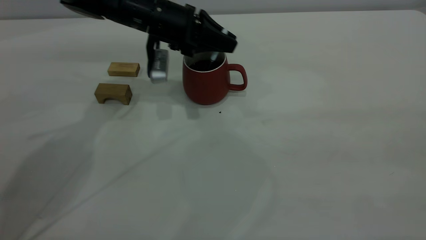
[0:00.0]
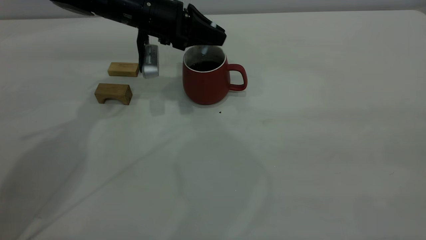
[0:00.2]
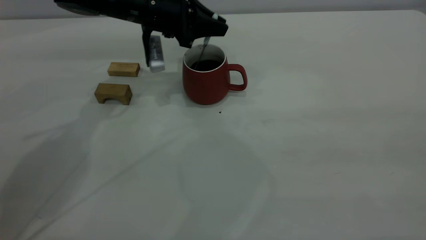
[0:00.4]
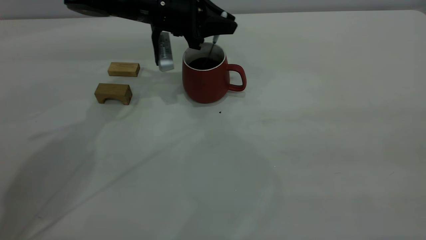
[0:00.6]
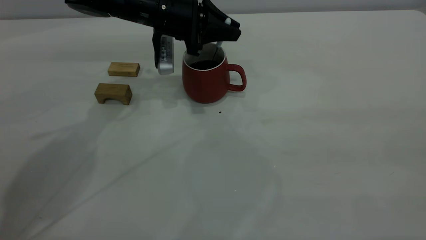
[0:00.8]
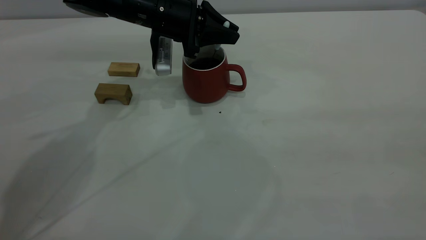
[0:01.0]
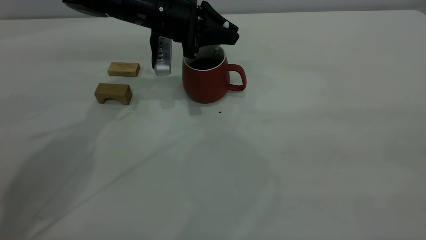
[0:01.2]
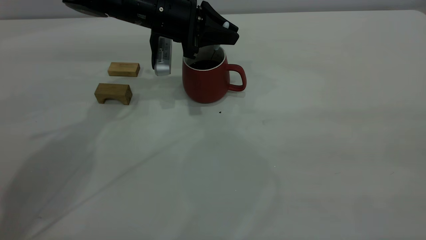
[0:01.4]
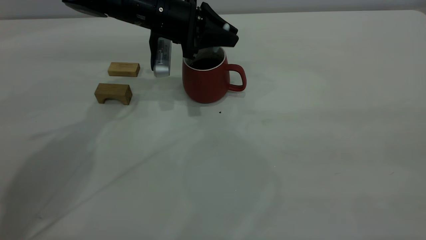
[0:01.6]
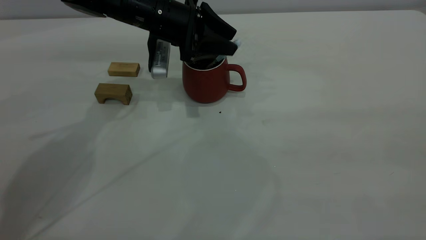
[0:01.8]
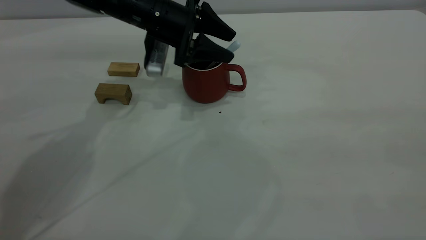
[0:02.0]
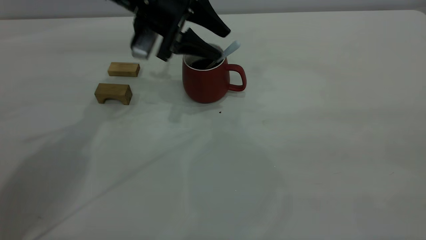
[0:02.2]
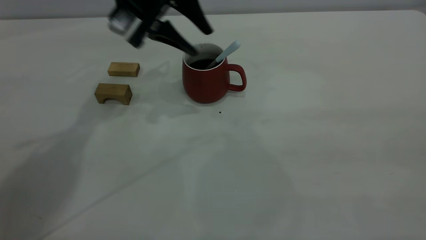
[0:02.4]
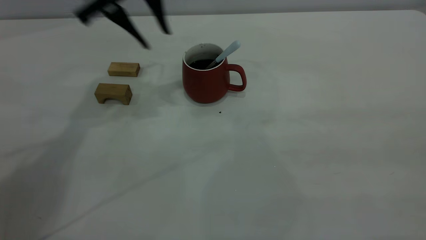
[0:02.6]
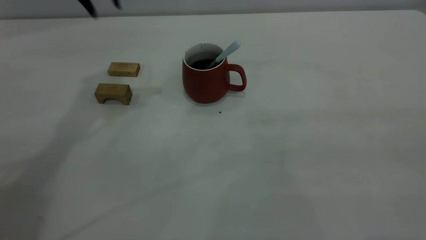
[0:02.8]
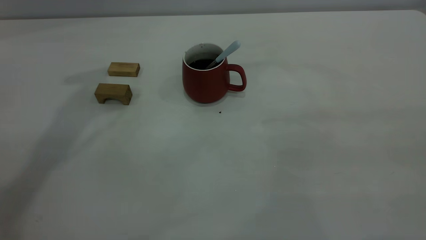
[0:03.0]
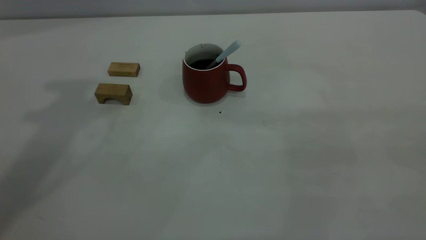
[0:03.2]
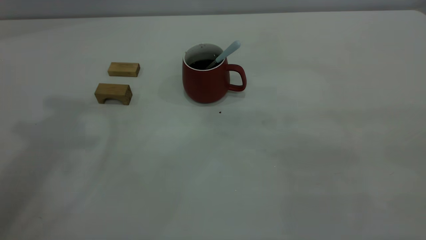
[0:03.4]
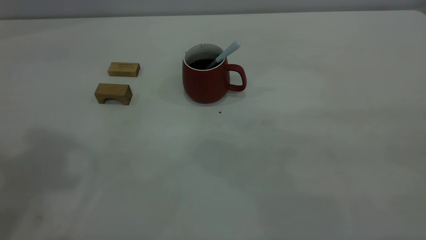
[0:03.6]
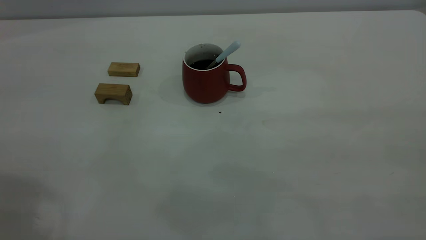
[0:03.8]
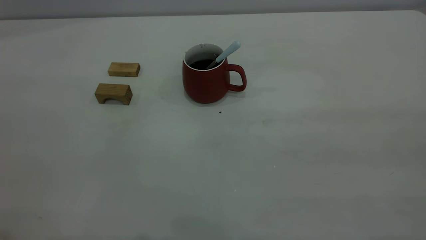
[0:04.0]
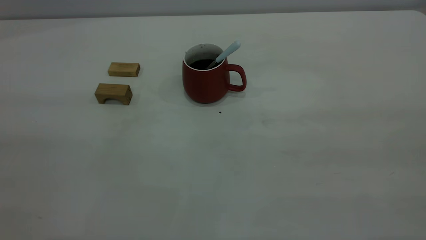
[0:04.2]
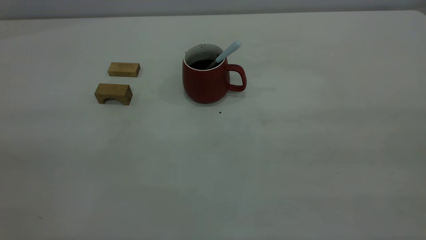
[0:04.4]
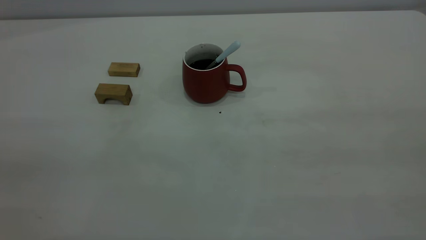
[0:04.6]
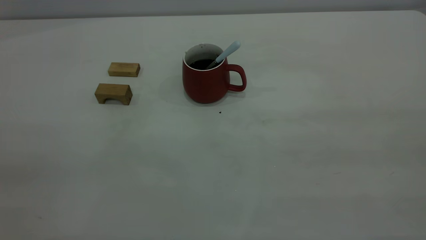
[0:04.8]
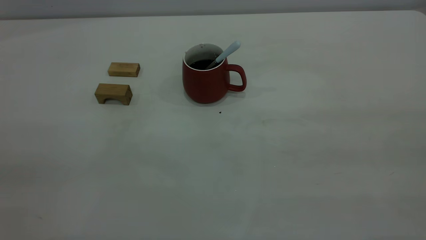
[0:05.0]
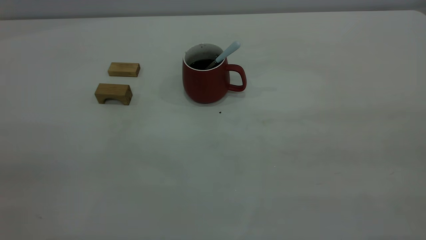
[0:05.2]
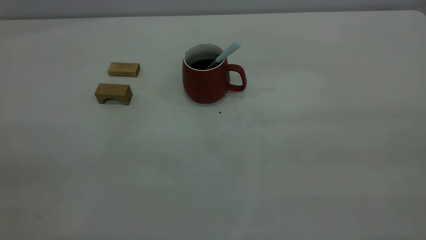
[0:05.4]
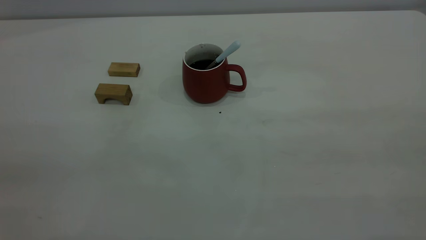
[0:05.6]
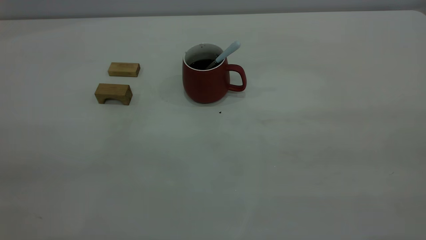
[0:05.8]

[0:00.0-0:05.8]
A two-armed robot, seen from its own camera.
Step, 0:00.0 to 0:02.4: Stir the coffee in the cup.
0:00.0 to 0:01.4: The grippers make only small movements.
0:01.4 to 0:02.8: The left gripper goes some 20 cm upward, and opens.
0:02.8 to 0:04.4: The left gripper shifts about 40 cm backward.

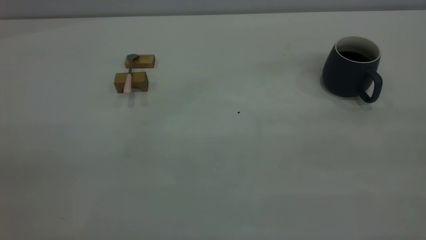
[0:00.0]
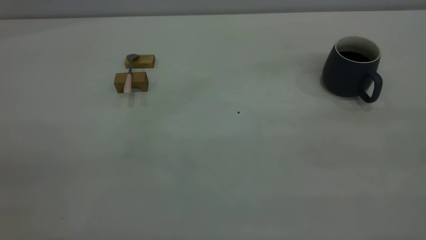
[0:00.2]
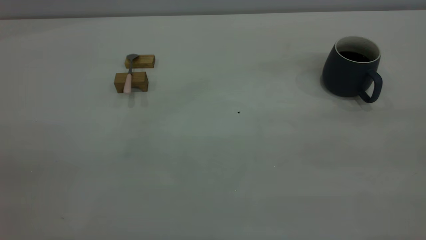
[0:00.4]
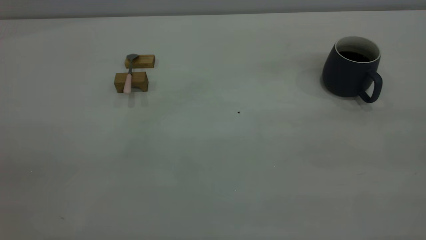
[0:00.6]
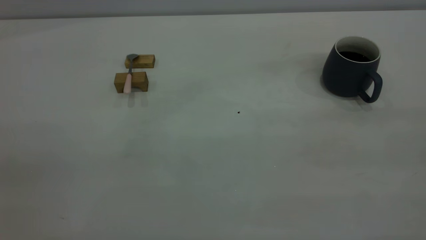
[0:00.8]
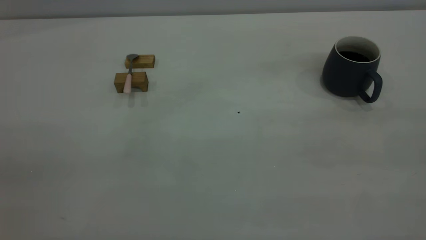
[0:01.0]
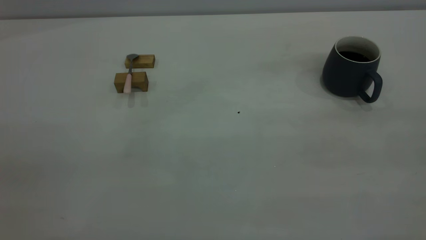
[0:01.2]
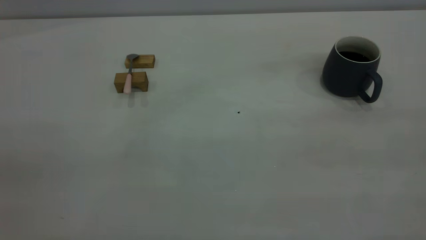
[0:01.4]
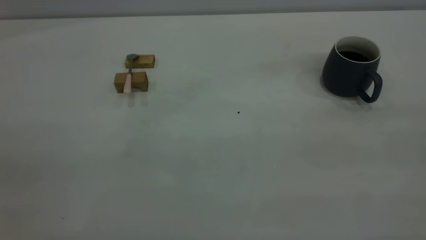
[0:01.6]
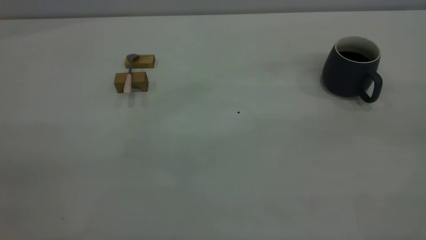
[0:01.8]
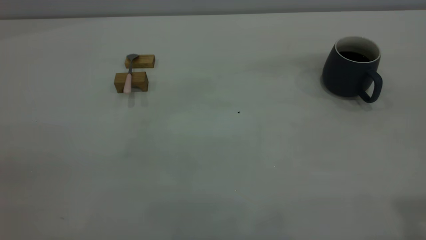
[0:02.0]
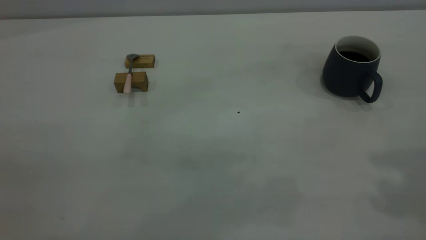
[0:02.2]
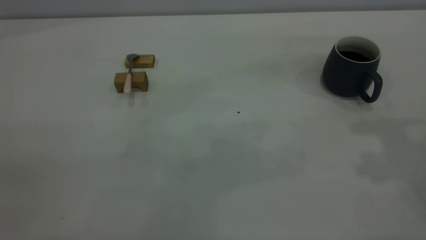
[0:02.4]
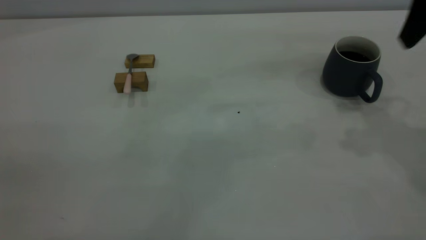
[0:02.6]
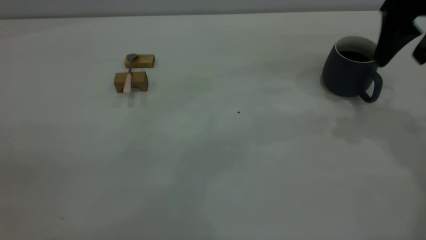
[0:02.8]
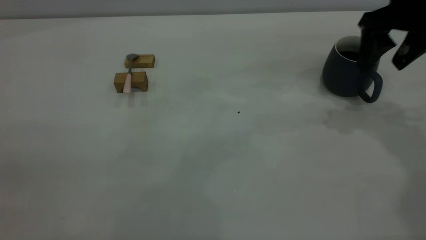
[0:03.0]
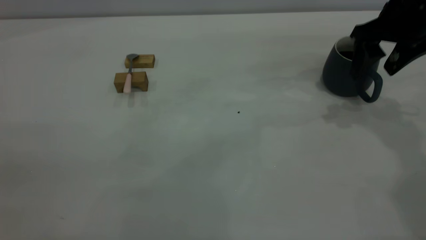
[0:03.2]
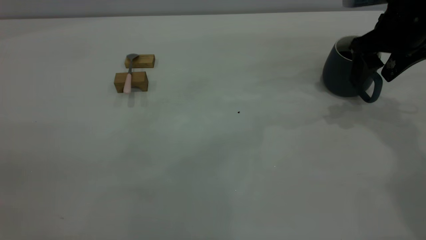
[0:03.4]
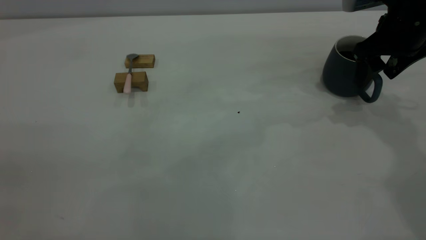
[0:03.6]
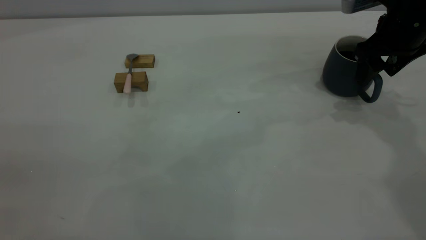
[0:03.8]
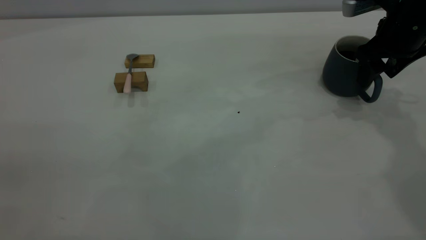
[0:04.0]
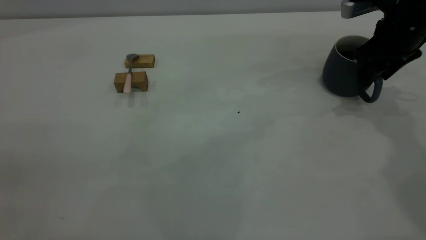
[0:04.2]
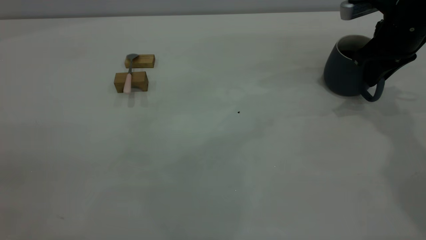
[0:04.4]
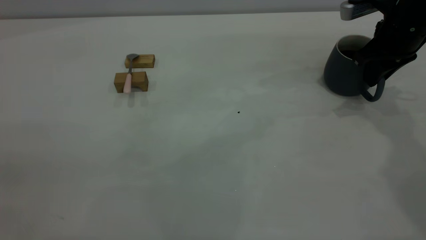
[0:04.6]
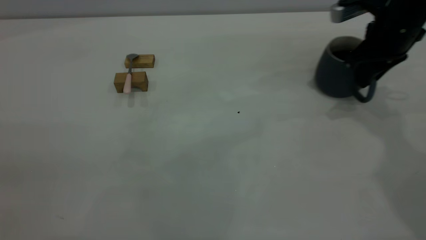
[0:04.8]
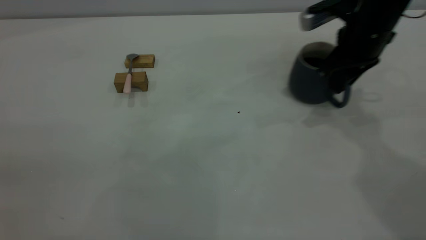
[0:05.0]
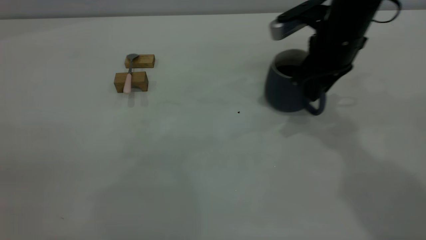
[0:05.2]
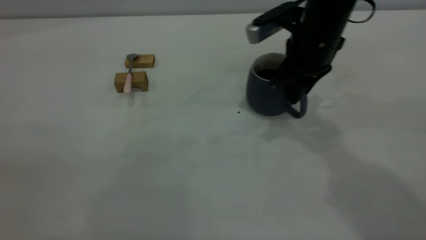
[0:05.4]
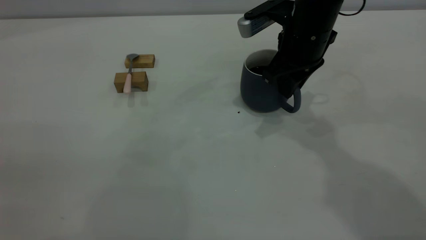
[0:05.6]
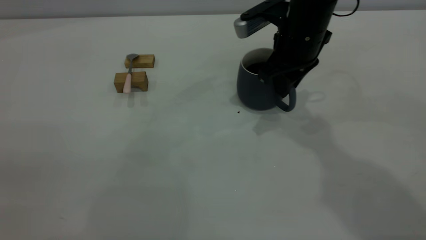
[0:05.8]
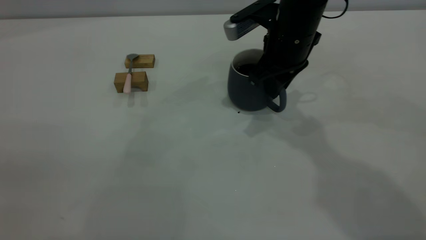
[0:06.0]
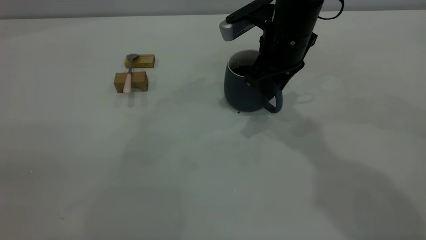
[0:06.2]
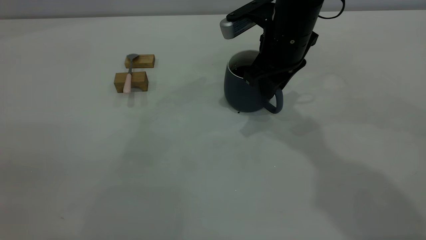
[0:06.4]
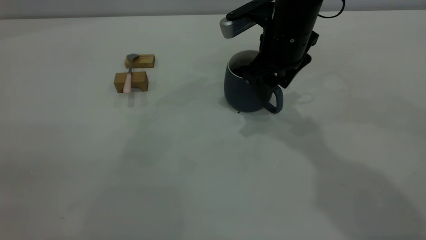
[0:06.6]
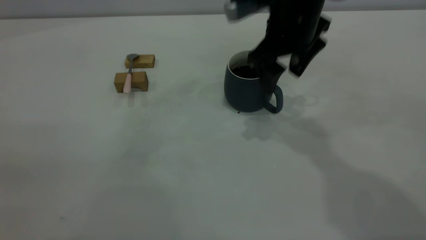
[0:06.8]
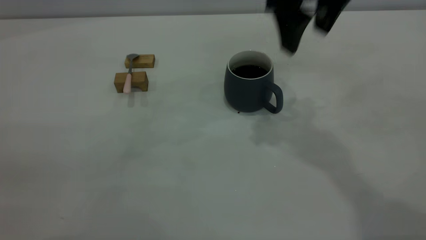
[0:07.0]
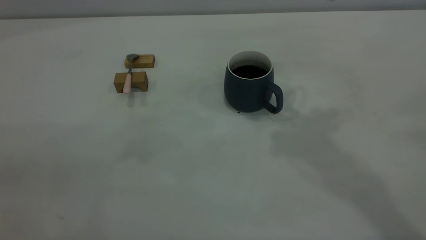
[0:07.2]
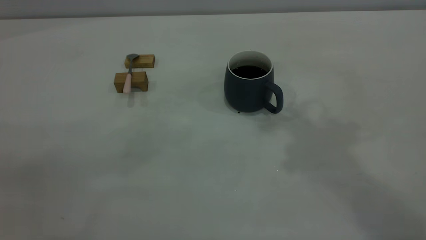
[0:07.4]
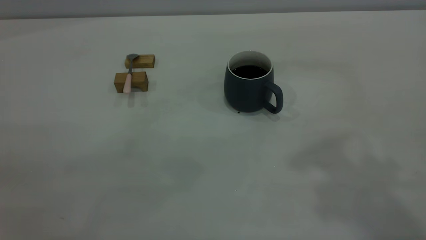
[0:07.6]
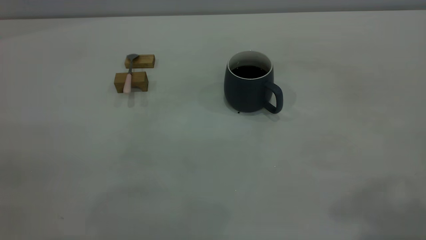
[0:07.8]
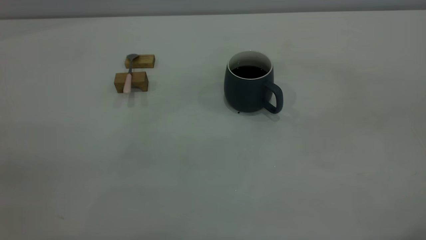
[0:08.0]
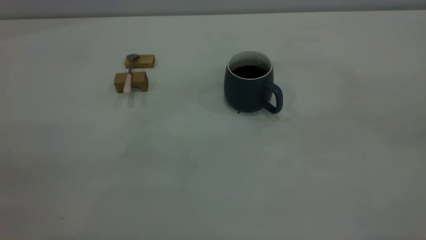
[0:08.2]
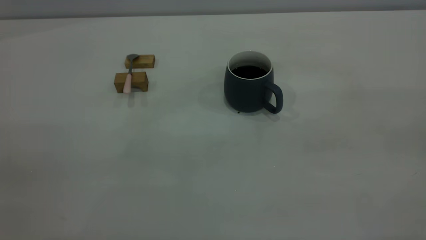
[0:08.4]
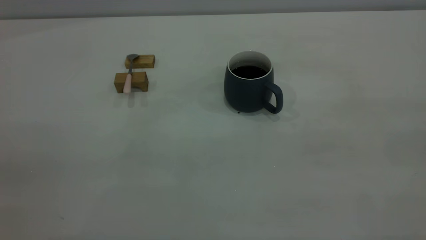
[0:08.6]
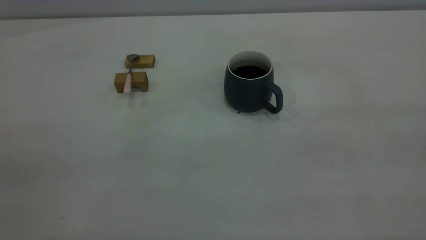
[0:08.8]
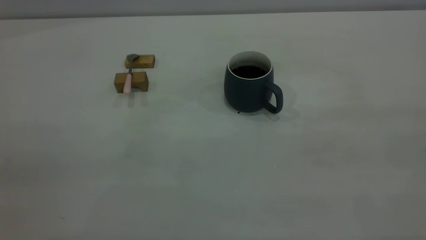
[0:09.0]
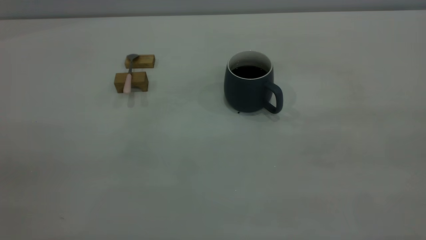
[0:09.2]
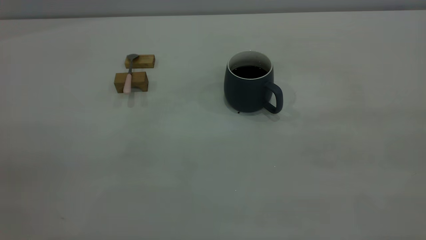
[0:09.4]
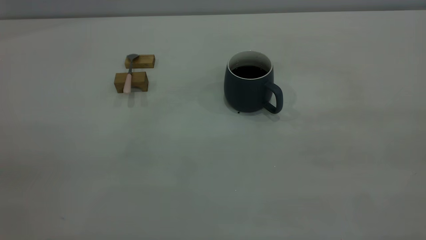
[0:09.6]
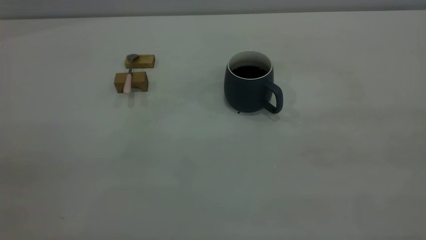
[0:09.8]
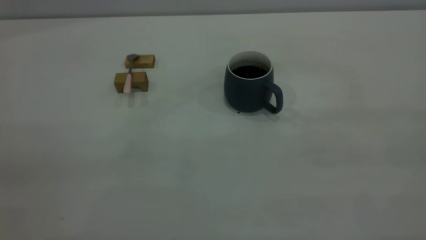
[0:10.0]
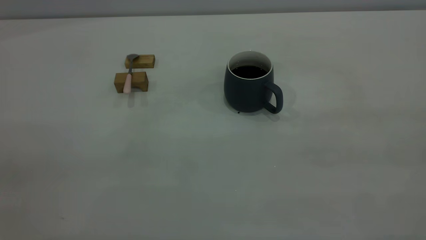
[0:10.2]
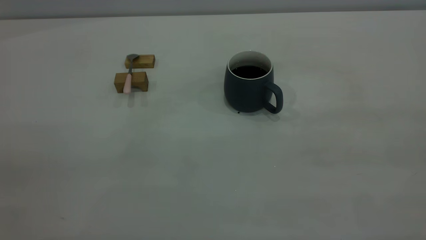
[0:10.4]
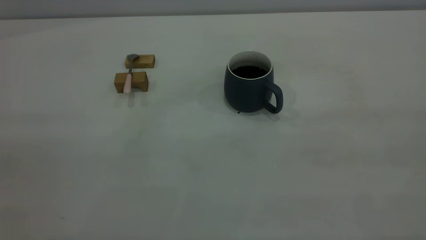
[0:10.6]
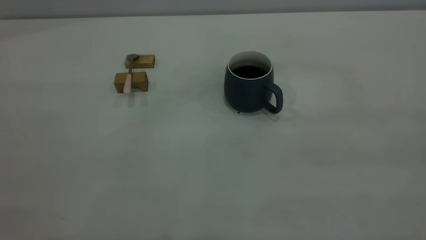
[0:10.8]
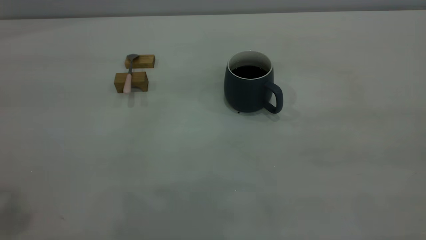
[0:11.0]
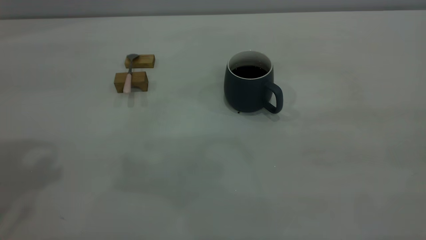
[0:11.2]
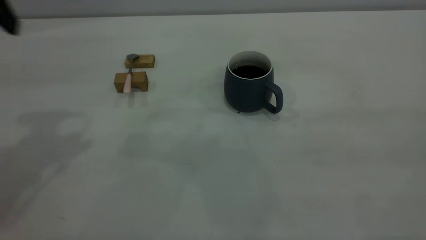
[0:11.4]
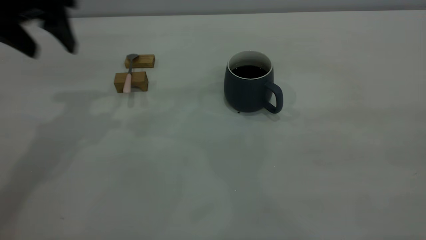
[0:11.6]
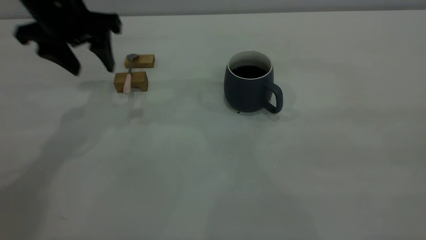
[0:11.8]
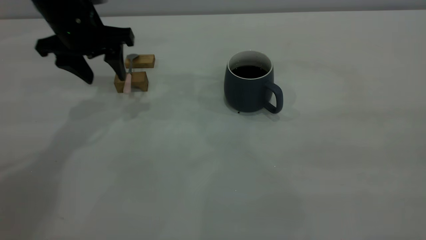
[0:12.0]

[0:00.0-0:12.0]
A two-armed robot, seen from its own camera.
Step, 0:00.0 to 0:06.8: Move the cup with coffee to the center of view.
0:00.0 to 0:01.6: The two grippers keep their place.
0:01.6 to 0:03.0: The right gripper heads forward and downward, covering roughly 40 cm.
0:03.0 to 0:04.4: The right gripper is displaced downward by roughly 5 cm, and closes.
0:04.4 to 0:06.0: The right gripper shifts about 20 cm to the left.
0:06.0 to 0:07.6: The right gripper moves upward and backward, some 35 cm, and opens up.
0:10.4 to 0:12.0: The left gripper is displaced forward and downward by roughly 50 cm, and opens up.
